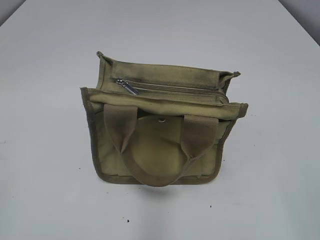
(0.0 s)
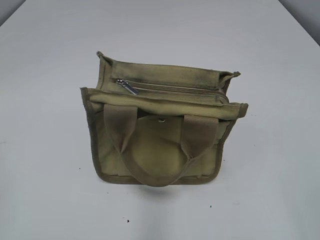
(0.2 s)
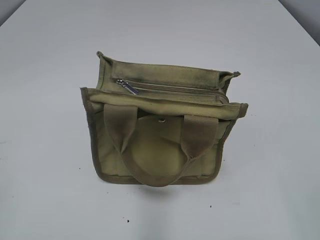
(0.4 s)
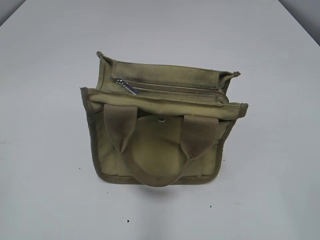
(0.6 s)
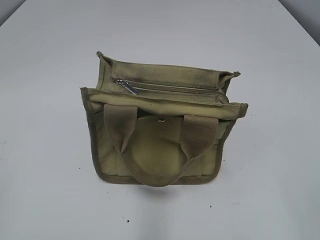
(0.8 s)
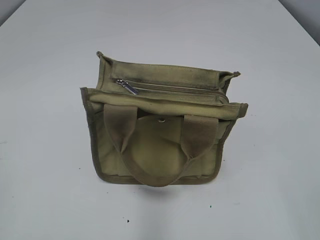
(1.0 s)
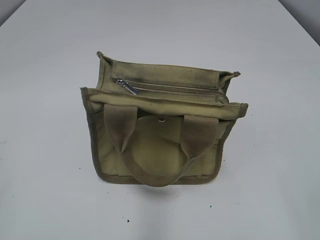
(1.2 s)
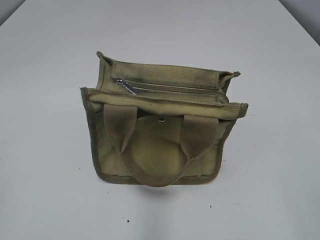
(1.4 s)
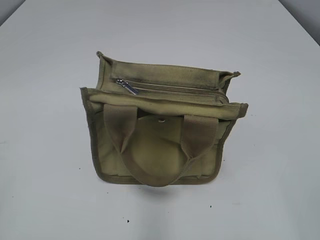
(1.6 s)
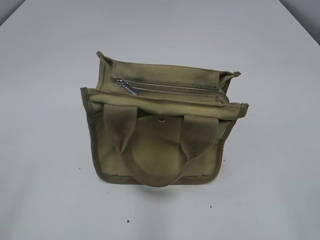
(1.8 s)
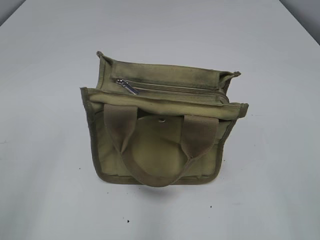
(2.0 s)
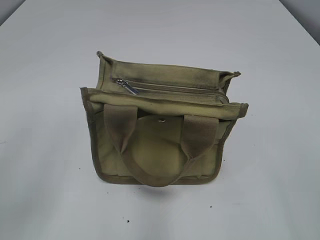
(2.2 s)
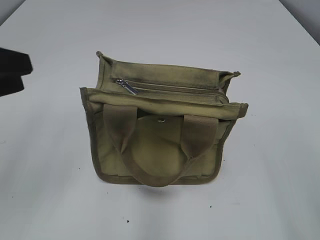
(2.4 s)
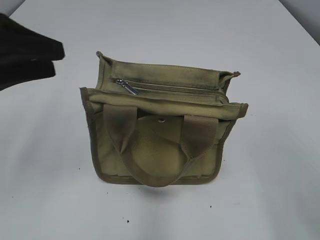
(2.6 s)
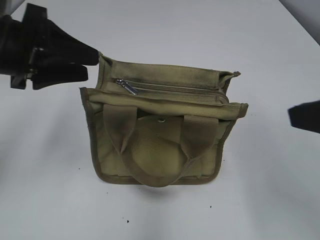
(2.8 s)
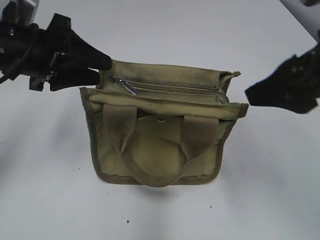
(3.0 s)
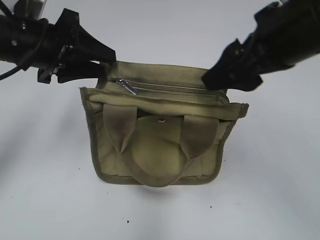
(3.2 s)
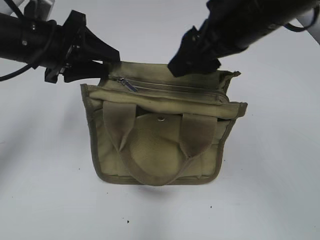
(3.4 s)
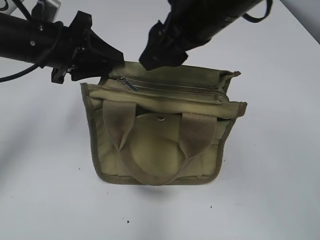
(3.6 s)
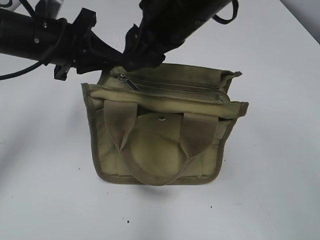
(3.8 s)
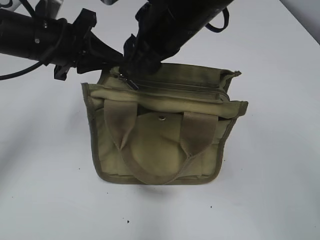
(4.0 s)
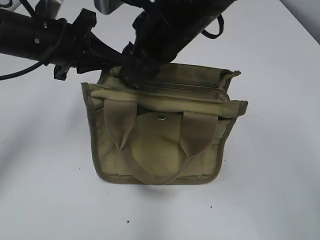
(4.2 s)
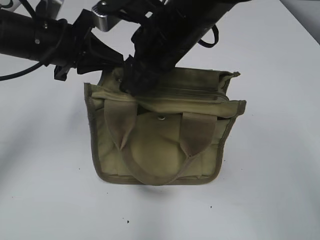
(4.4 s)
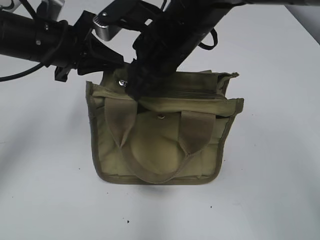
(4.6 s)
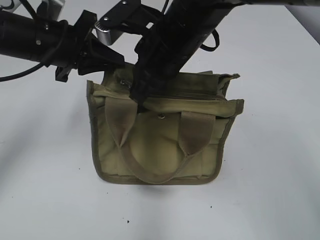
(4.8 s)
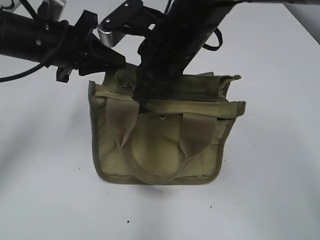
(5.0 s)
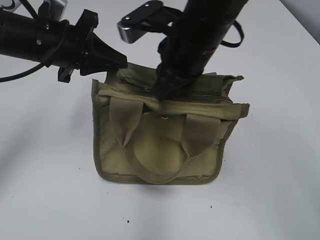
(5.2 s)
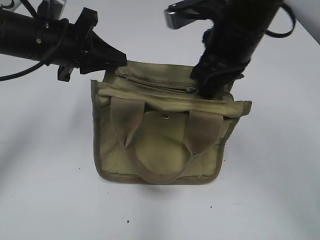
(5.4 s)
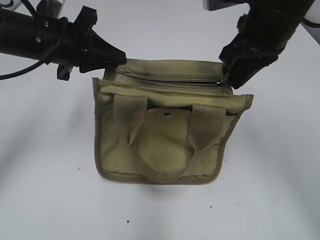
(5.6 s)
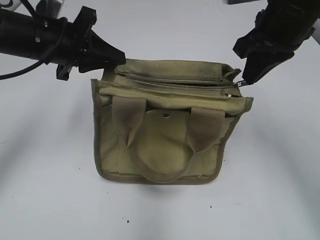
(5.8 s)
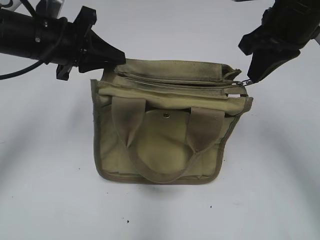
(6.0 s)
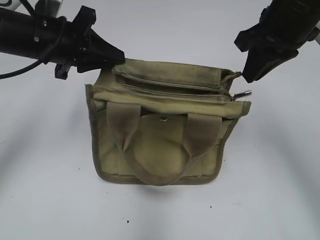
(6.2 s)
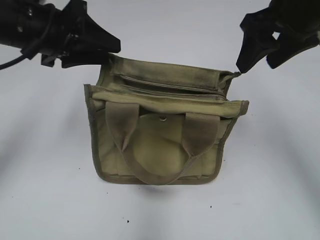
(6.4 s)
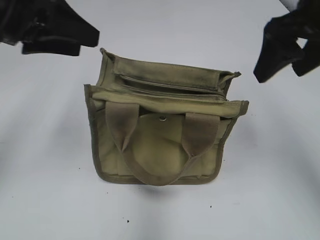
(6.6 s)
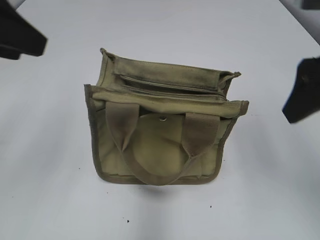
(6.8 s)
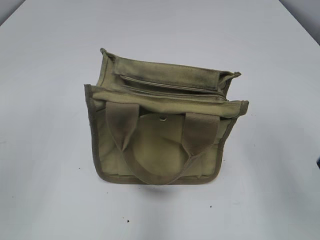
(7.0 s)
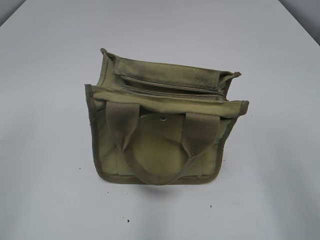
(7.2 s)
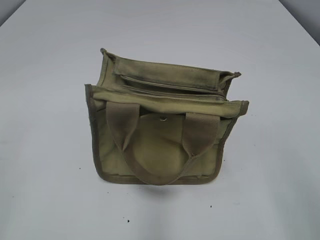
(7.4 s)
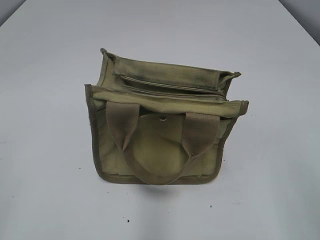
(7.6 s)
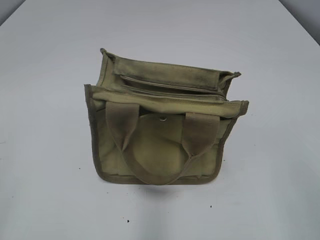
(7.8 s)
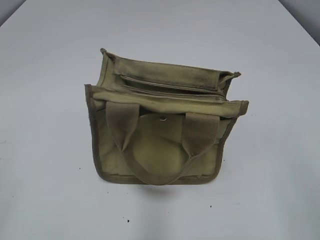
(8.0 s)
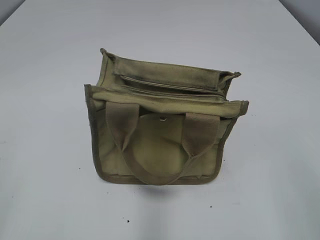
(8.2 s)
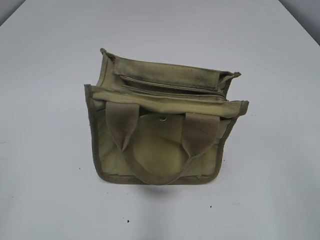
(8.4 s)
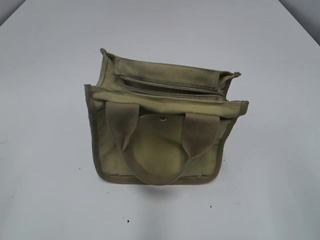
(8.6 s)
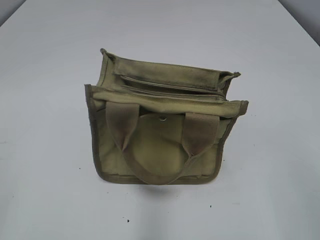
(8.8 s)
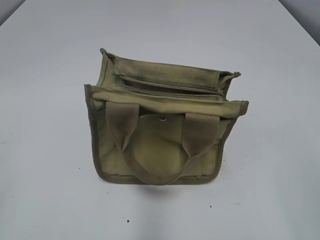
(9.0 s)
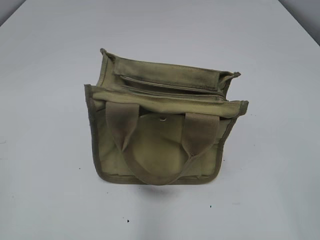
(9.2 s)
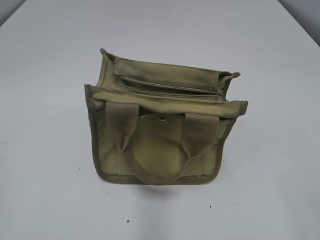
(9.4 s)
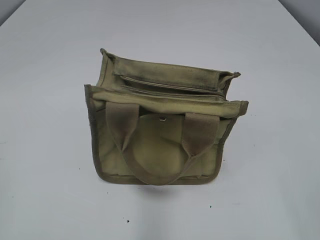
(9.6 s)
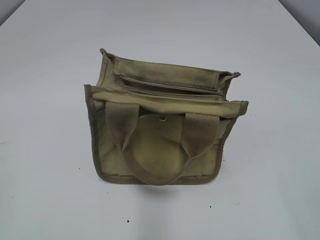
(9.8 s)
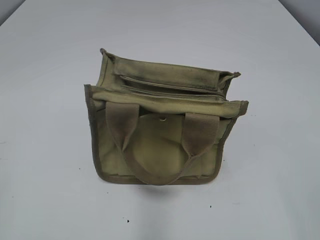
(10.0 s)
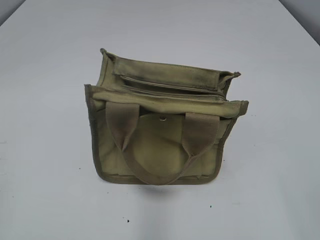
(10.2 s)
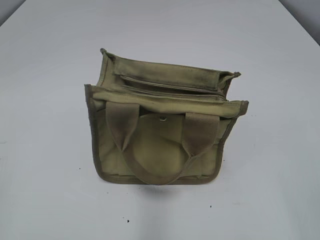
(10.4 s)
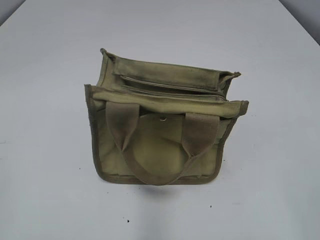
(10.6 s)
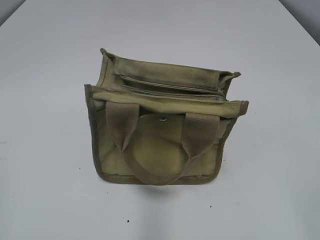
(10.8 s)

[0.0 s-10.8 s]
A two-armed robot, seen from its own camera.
Step, 0.0 to 6.2 s: Zip up the bag with your right hand.
1.6 to 3.0 s: The right gripper moves forward, approximately 20 cm; the left gripper shifts some 30 cm forward and to the right.
3.0 to 4.6 s: The right gripper shifts approximately 20 cm to the left and forward, and closes. The left gripper moves forward, some 5 cm, and closes.
4.6 to 6.2 s: The right gripper moves to the right, some 15 cm, and closes up.
6.2 to 7.8 s: The right gripper moves backward, roughly 30 cm, and opens its fingers. Meanwhile the left gripper goes approximately 35 cm backward and to the left, and opens its fingers.

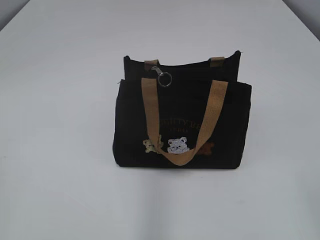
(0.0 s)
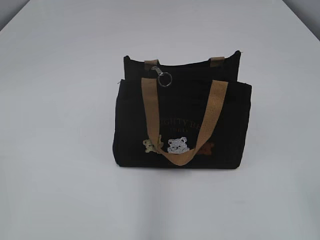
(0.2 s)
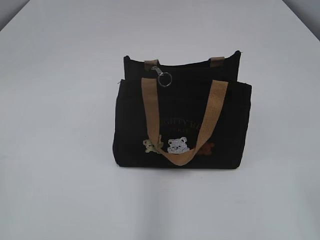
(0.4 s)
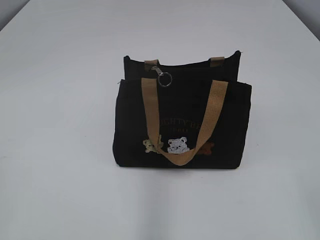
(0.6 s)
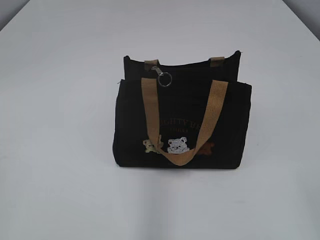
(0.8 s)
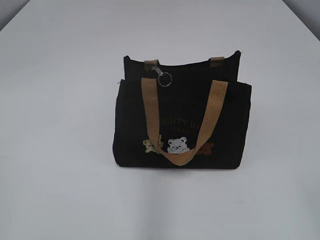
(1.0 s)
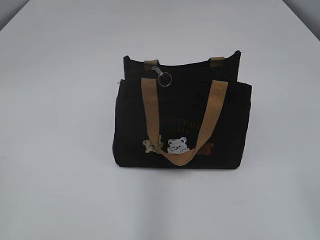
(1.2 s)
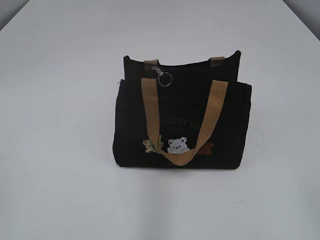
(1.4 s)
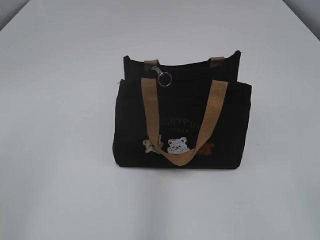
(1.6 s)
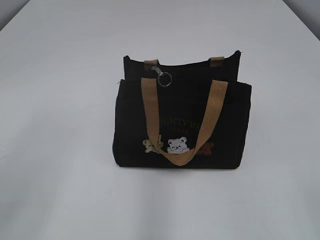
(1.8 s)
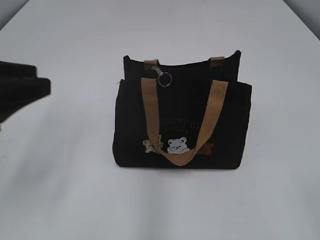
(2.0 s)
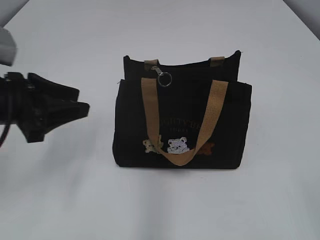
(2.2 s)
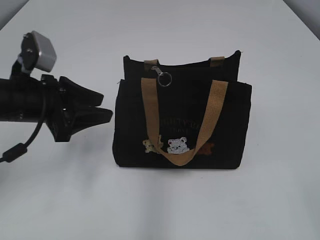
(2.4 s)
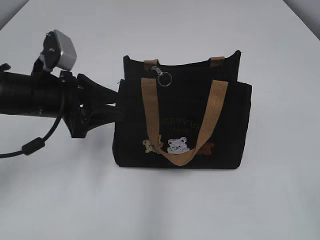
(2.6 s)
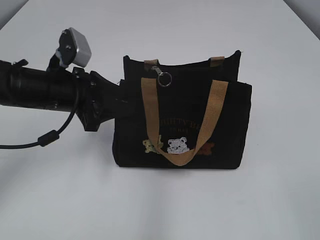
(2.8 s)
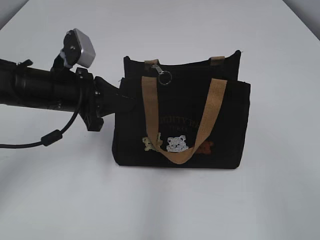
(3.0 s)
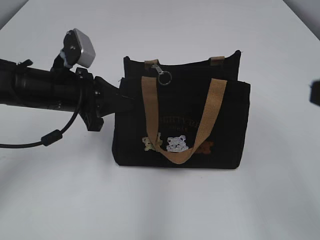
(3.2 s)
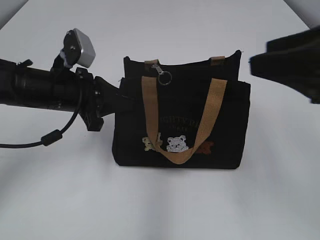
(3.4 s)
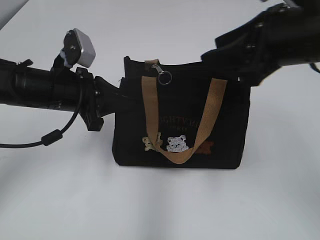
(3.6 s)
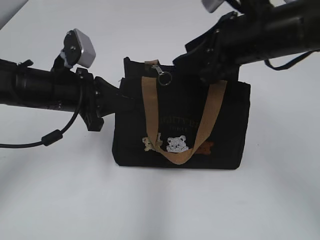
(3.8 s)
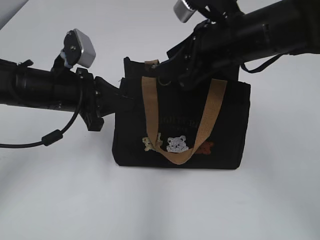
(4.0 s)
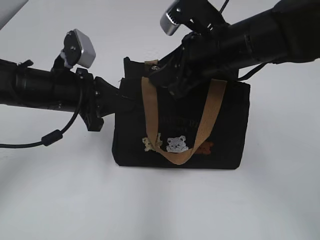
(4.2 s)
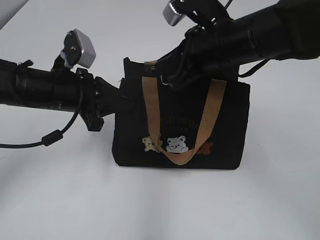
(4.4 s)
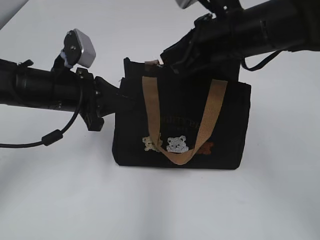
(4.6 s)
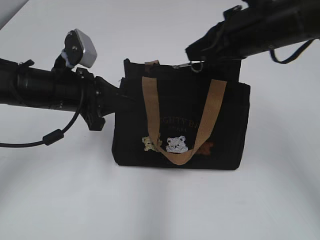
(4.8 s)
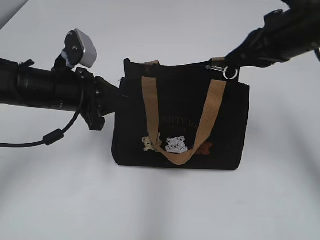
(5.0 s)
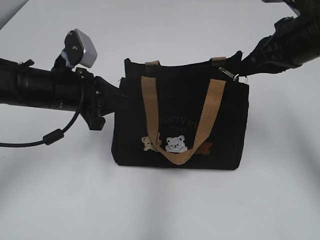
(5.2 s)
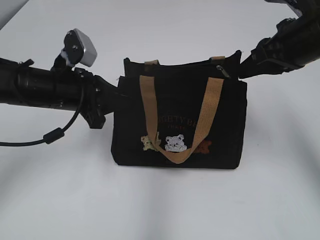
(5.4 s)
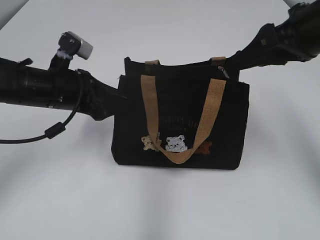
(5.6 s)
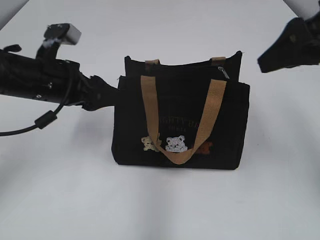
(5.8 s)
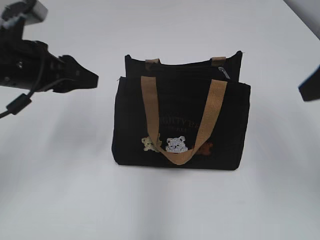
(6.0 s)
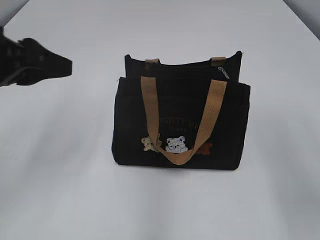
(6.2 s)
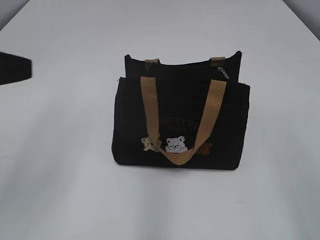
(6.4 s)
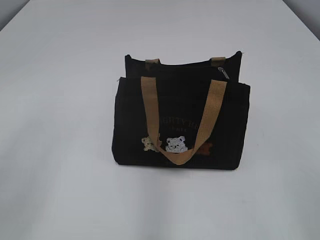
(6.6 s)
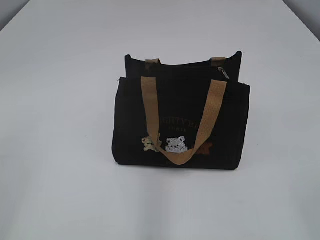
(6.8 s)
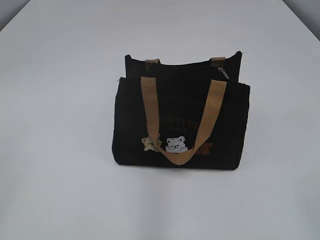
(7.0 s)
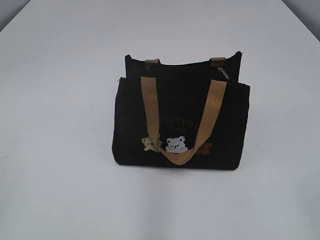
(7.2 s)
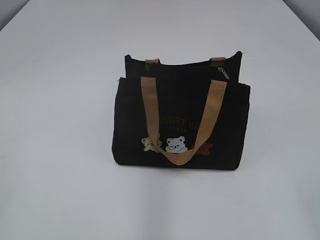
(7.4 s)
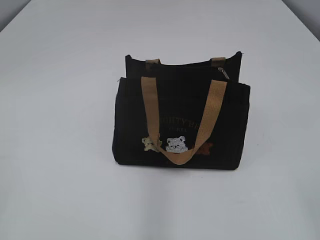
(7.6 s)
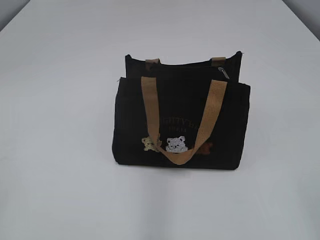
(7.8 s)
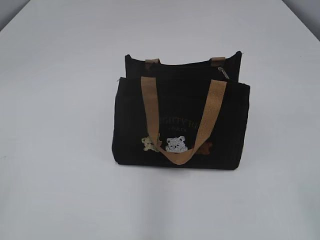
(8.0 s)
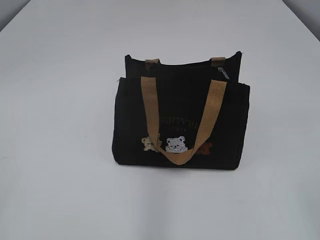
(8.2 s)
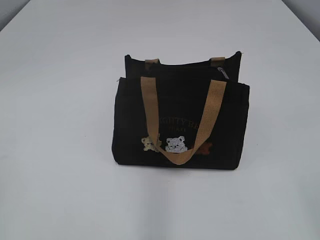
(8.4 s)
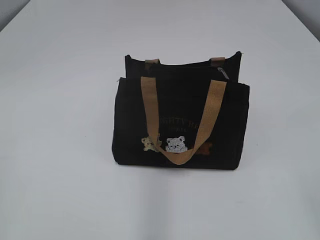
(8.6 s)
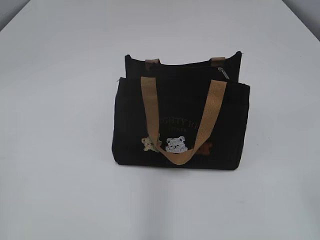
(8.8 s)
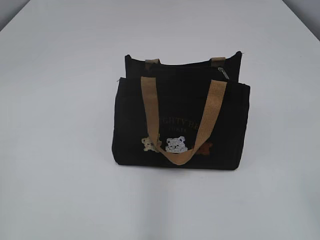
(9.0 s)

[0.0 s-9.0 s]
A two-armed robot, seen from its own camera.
Step, 0.0 to 5.6 s: Pull open the zipper with your right hand.
1.6 to 3.0 s: The left gripper moves forward, downward and to the right, approximately 35 cm, and closes its fingers; the right gripper ends up roughly 5 cm from where it was.
3.0 to 4.4 s: The right gripper goes about 35 cm forward and to the left, and closes its fingers.
4.4 to 6.0 s: The left gripper moves upward, roughly 5 cm, and opens up; the right gripper travels to the right, backward and upward by roughly 20 cm, and opens up.
6.0 to 7.6 s: The right gripper is displaced backward by roughly 25 cm. The left gripper heads backward and to the left, covering some 30 cm.

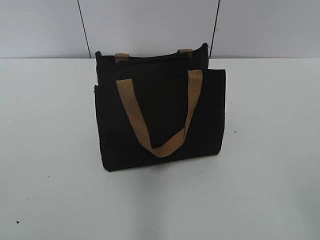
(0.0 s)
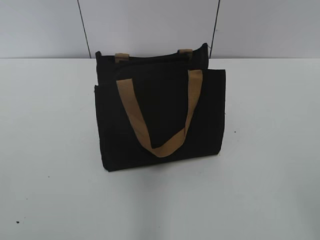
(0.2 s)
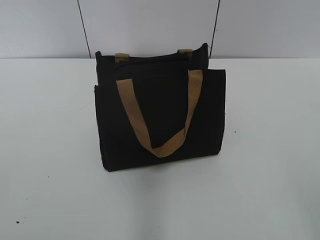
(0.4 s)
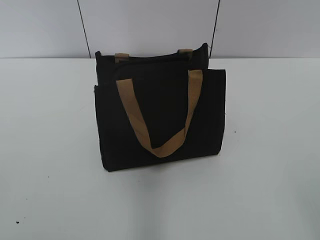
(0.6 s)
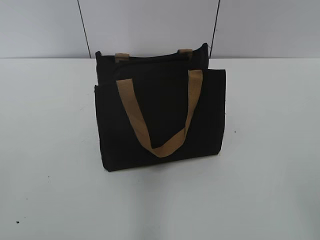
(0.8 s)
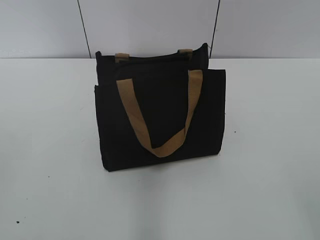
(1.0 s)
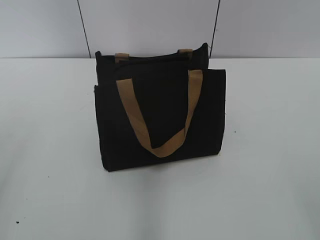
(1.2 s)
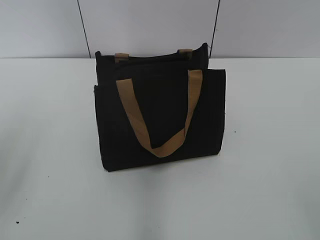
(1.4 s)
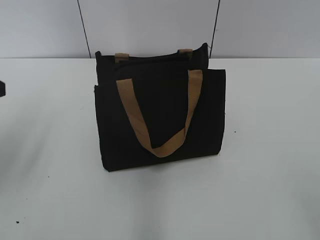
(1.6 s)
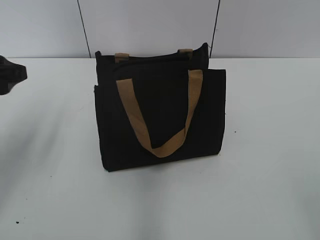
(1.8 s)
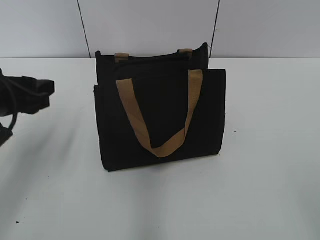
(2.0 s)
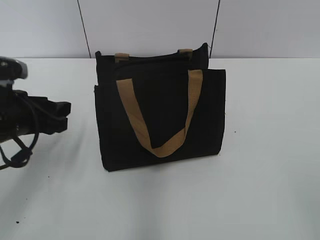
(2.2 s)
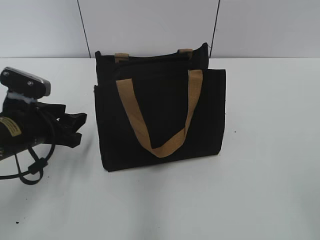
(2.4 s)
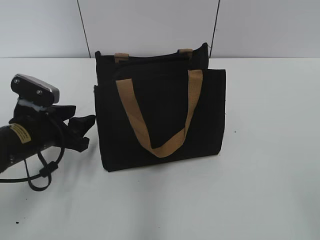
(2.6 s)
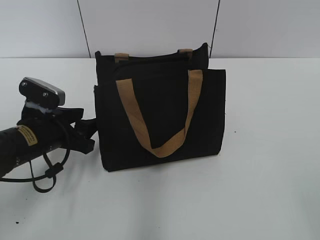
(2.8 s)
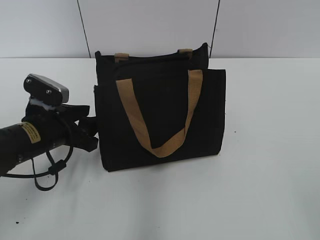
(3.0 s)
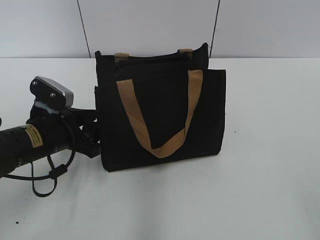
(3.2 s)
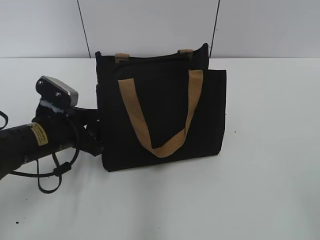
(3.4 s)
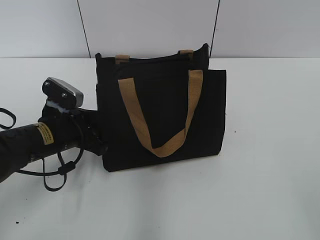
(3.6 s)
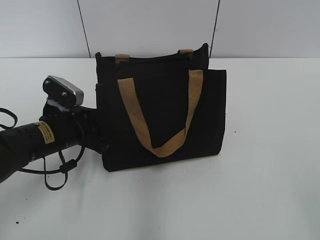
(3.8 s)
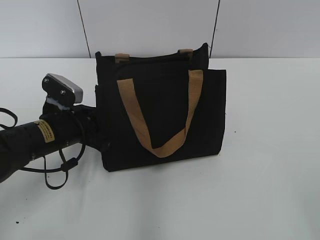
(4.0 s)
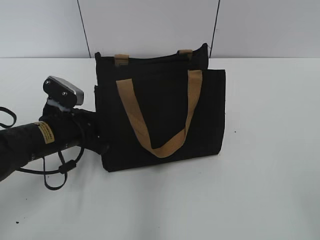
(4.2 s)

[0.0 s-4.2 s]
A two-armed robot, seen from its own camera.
1.4 to 2.8 s: The left gripper heads downward, forward and to the right, covering some 25 cm.
2.8 to 4.2 s: The left gripper closes its fingers.
